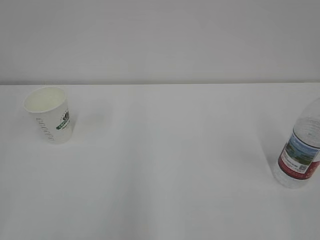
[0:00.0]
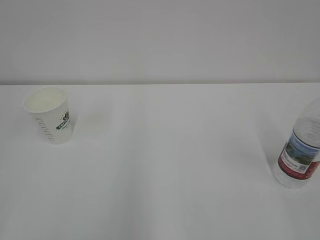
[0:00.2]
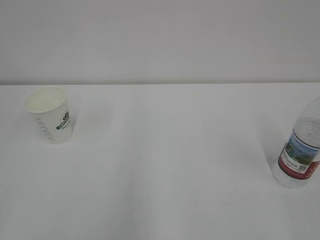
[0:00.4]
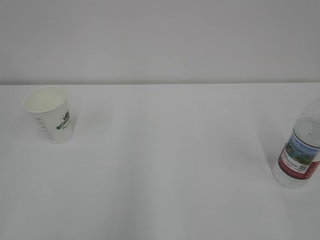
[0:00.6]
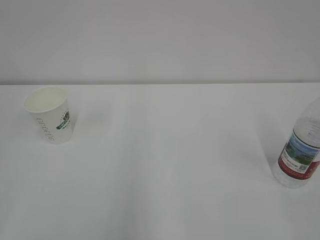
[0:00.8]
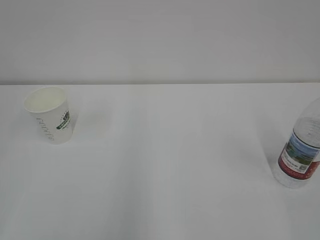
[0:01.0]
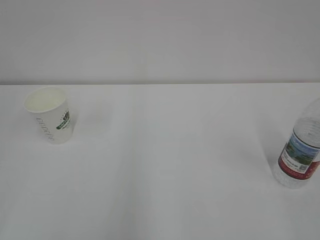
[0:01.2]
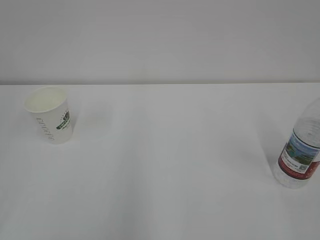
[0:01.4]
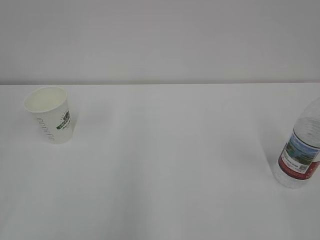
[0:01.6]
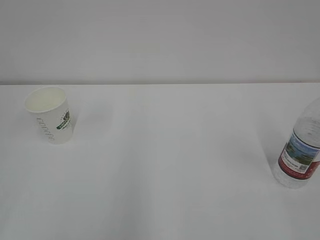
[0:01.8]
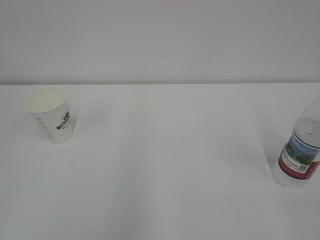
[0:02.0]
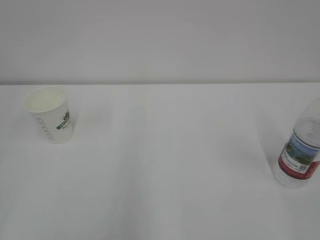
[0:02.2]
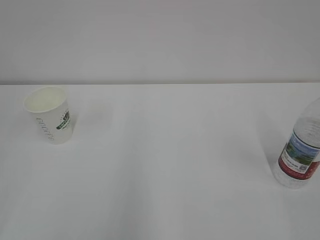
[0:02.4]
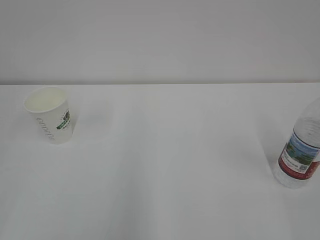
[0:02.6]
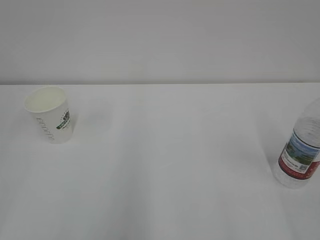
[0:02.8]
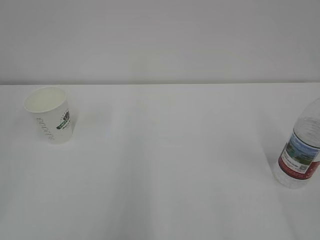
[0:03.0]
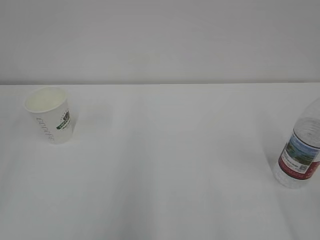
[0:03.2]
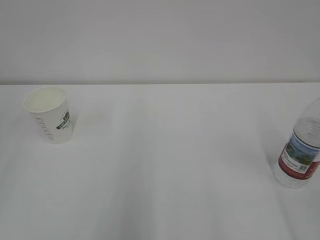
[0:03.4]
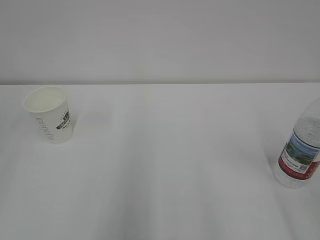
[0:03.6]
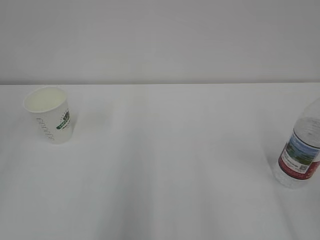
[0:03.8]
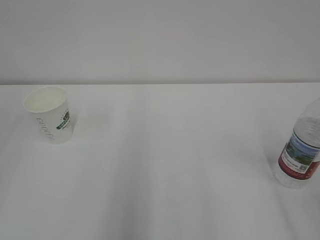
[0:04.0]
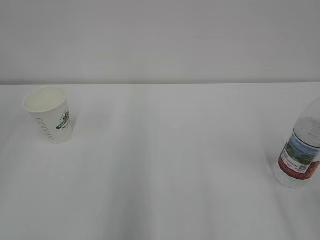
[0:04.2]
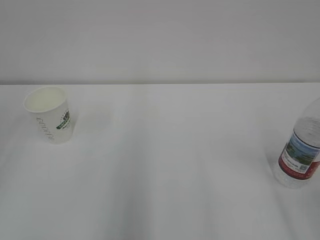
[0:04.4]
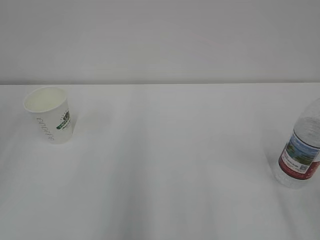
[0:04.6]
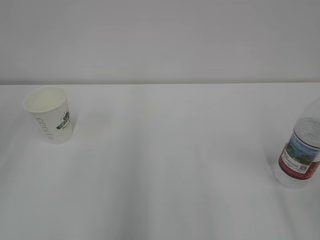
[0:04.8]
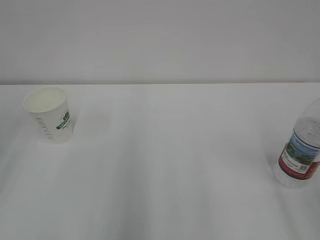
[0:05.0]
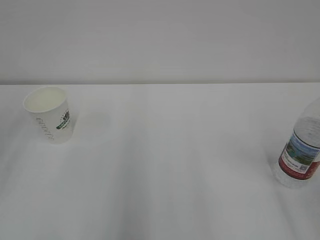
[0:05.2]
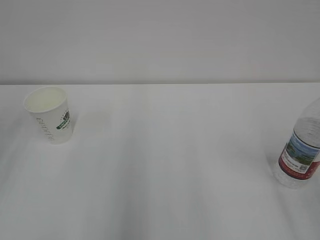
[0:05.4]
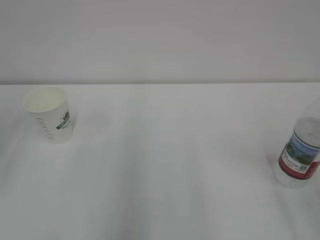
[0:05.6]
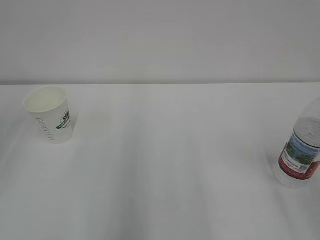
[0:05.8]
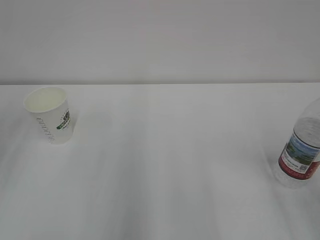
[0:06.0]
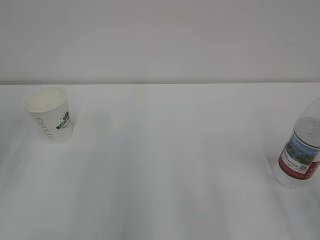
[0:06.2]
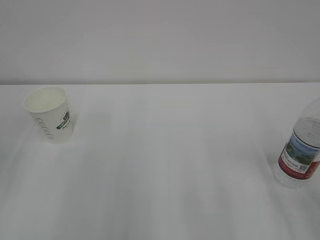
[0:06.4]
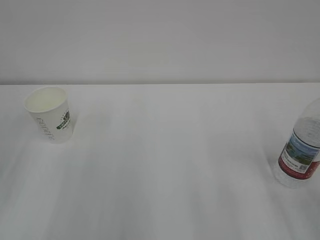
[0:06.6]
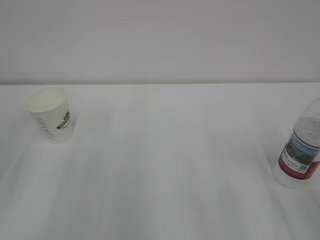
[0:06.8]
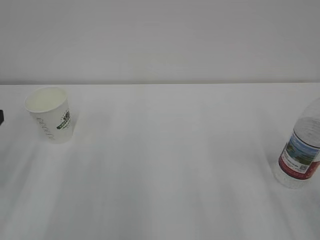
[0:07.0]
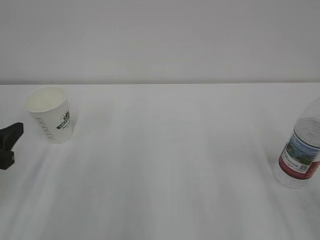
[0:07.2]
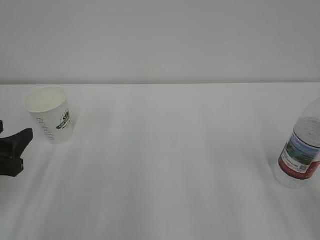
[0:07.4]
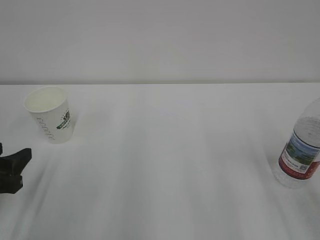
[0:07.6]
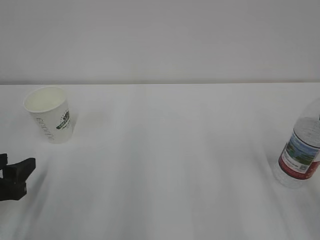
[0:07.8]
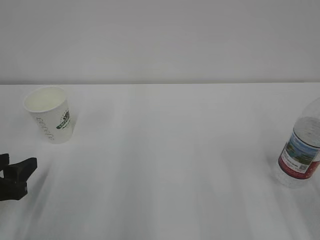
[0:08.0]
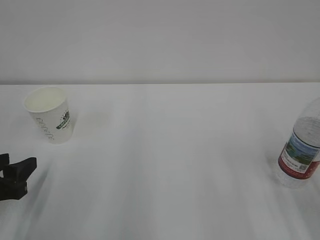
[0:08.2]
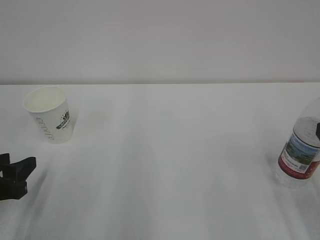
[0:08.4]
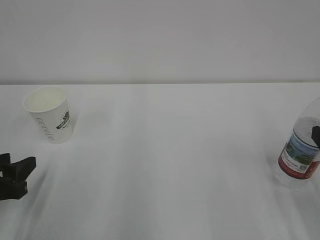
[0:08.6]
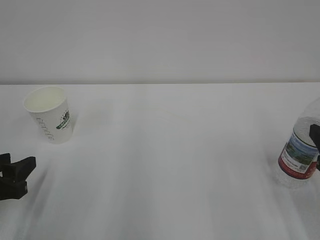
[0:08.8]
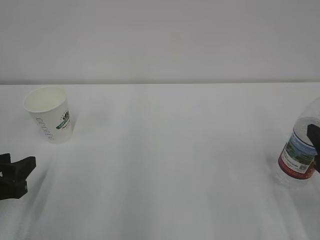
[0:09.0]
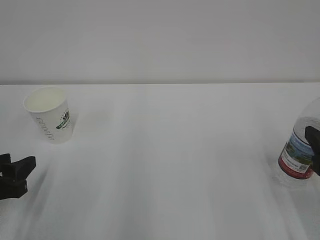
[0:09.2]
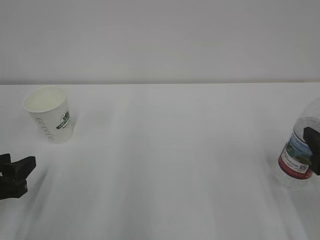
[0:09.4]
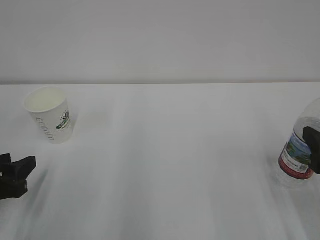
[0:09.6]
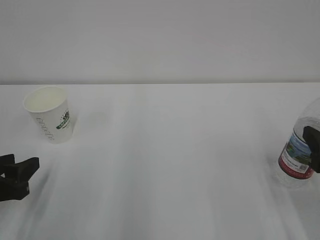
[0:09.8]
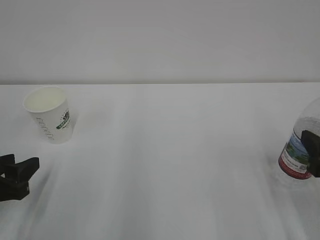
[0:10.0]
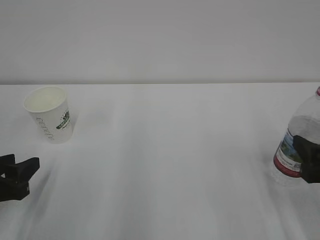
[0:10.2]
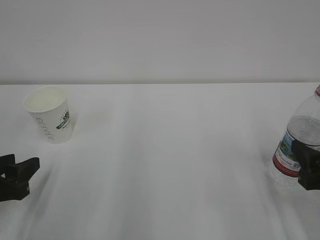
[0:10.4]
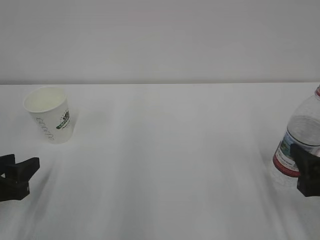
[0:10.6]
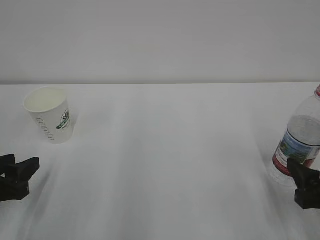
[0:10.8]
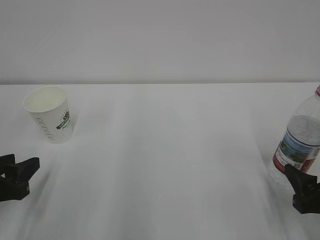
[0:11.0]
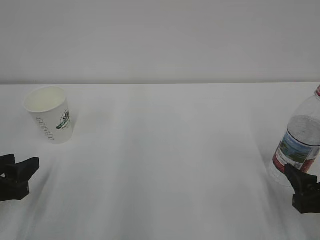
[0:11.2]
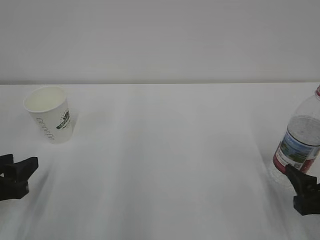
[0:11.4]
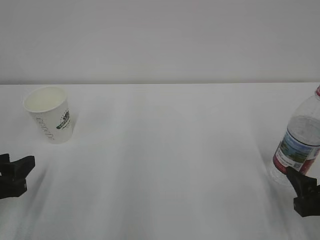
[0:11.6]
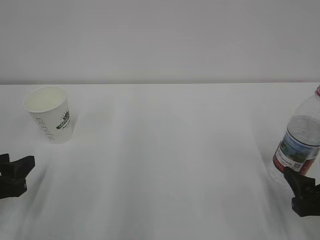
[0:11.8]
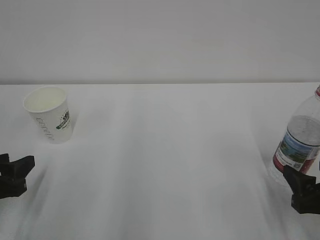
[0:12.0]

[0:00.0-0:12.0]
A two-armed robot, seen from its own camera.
0:06.0 to 0:07.6: The left gripper is displaced downward by approximately 15 cm.
0:09.0 to 0:10.4: There are only small adjustments of the grippers.
0:10.4 to 0:12.0: There are only small adjustments of the grippers.

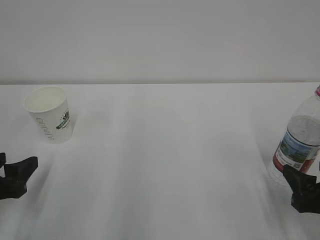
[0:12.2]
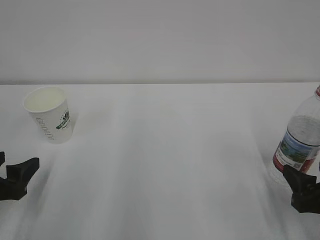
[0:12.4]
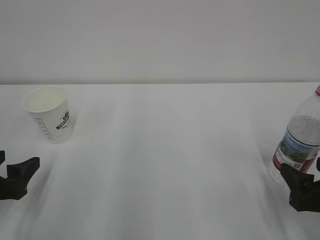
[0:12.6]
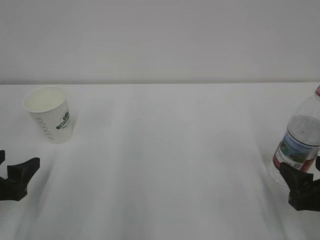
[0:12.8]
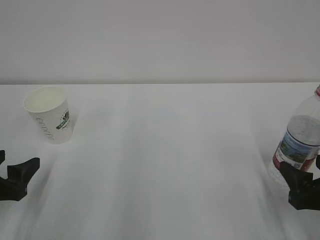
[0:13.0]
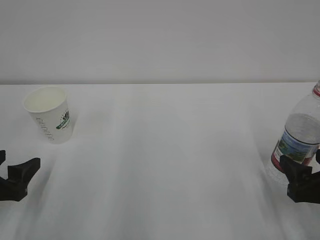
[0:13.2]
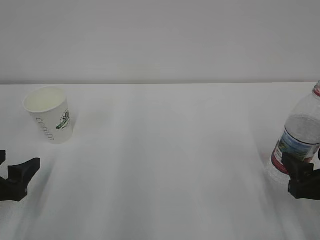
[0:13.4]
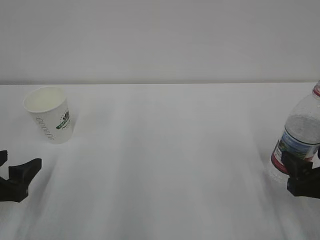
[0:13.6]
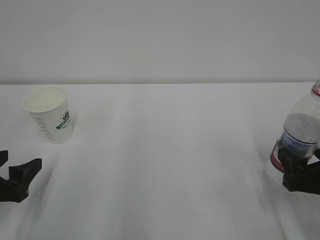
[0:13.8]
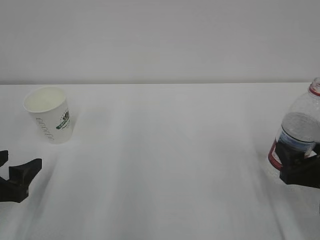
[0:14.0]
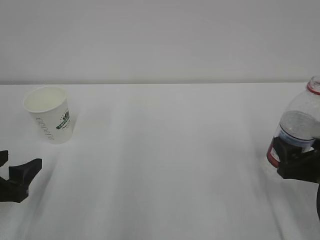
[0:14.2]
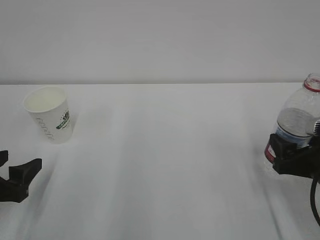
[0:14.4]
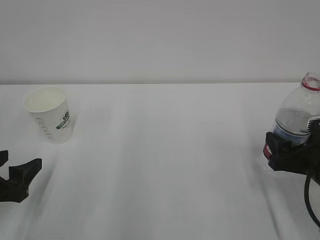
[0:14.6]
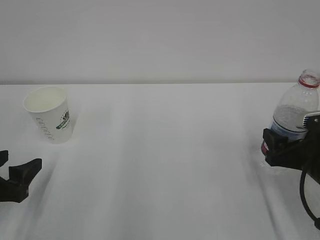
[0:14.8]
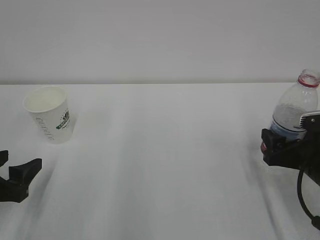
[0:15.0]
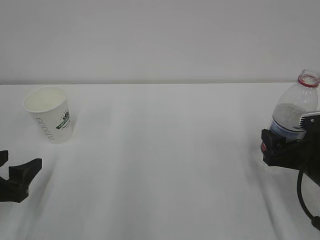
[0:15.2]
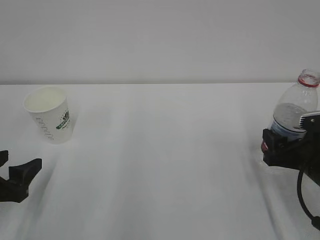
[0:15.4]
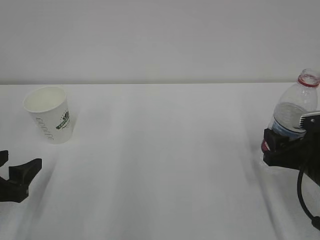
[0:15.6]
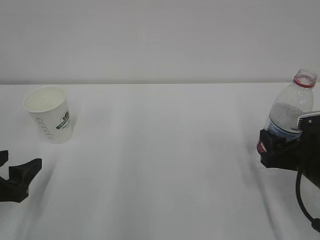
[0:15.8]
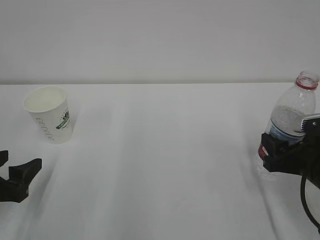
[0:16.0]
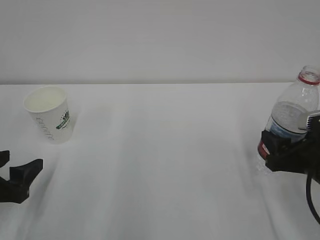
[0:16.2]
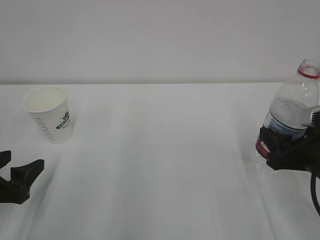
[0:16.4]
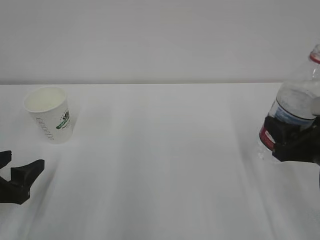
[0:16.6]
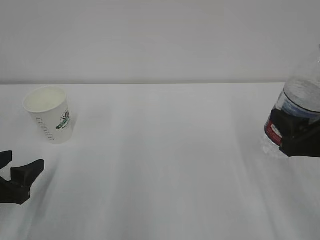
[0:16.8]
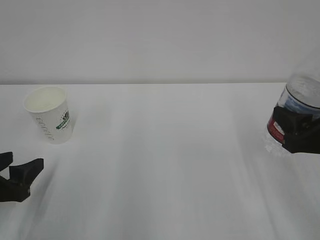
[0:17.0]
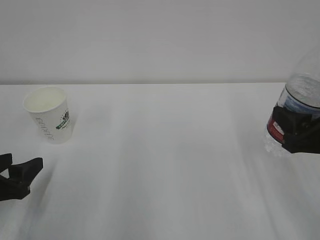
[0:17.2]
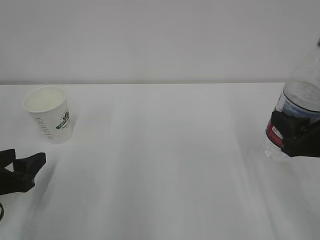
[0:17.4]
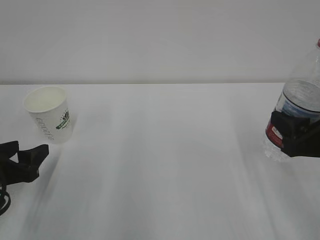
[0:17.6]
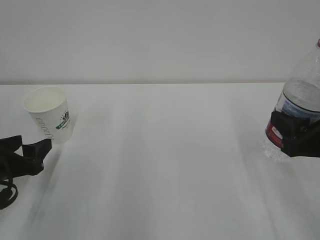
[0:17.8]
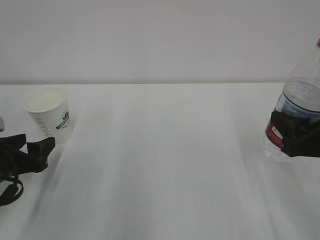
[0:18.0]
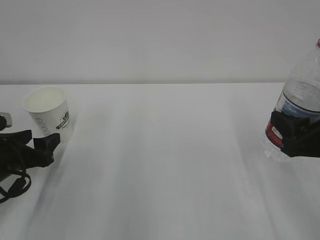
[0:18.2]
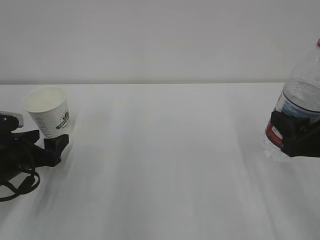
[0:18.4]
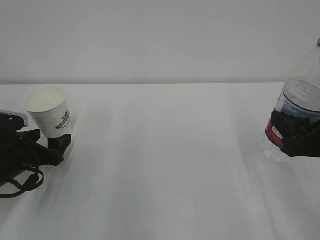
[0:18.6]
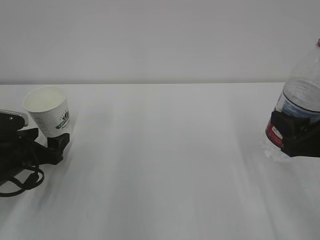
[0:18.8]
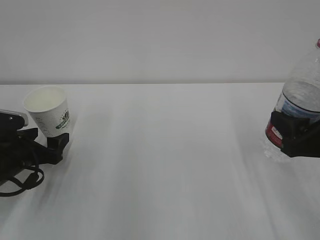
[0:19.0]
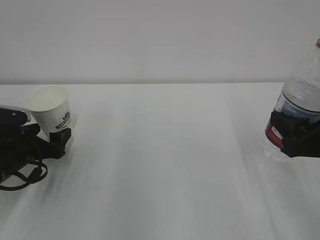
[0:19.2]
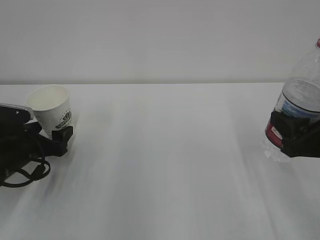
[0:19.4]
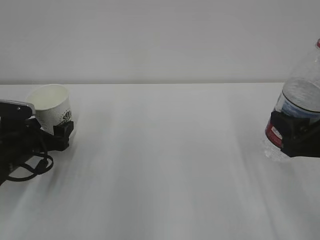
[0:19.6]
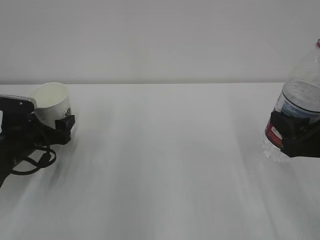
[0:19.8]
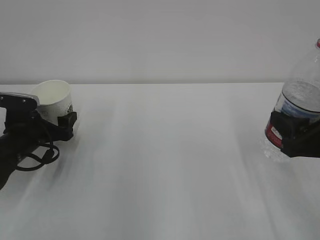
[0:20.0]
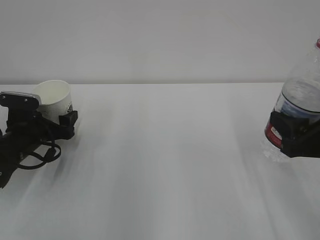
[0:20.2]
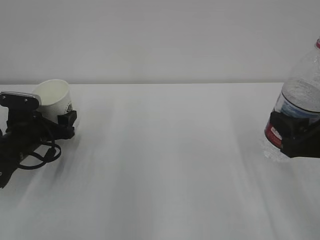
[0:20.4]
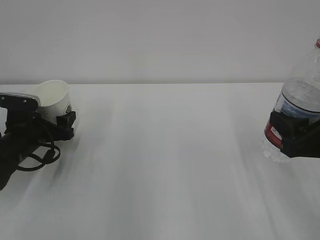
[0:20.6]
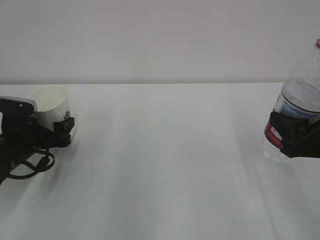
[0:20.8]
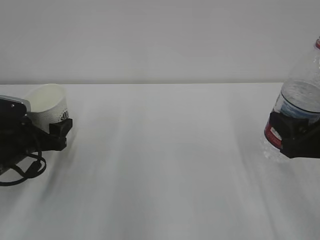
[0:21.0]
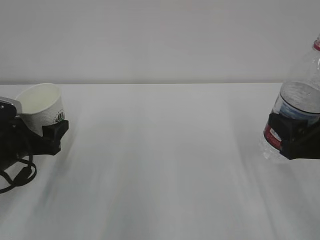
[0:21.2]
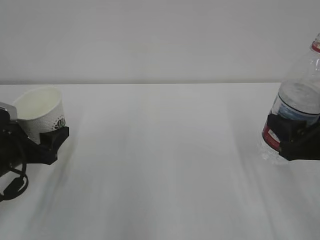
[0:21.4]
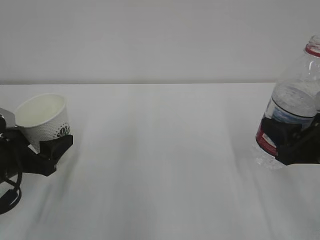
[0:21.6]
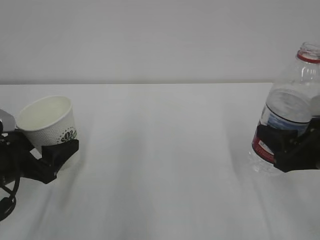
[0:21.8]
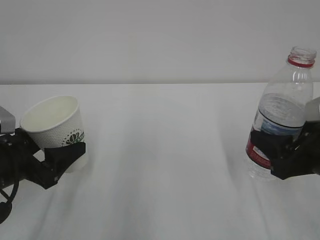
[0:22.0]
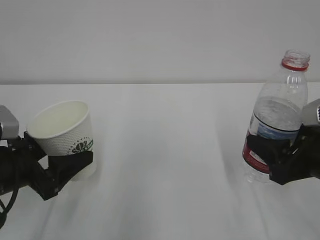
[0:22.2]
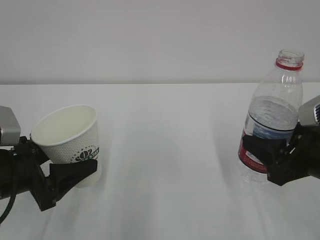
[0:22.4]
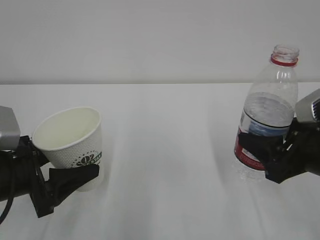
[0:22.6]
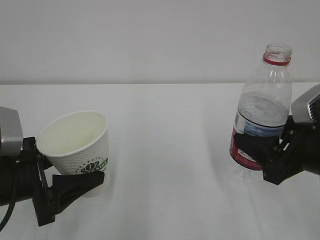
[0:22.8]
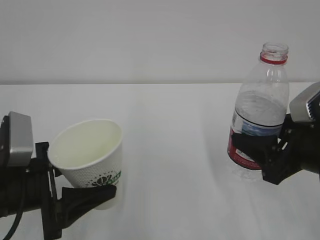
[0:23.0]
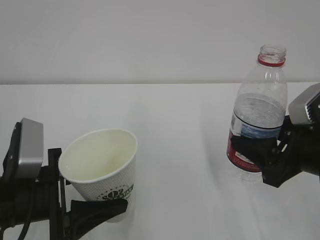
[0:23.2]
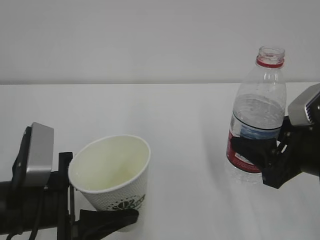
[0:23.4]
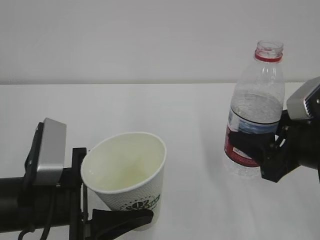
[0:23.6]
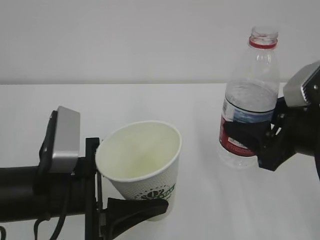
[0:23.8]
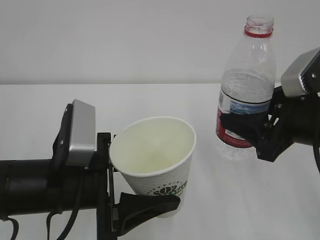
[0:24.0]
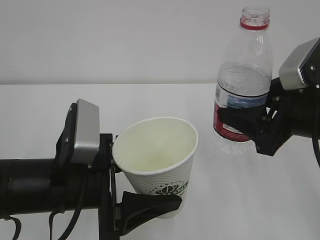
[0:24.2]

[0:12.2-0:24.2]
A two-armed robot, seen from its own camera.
0:12.2 to 0:13.8: The grippers make only small movements.
0:13.8 to 0:15.2: The right gripper is displaced forward by roughly 5 cm.
0:15.2 to 0:16.6: The right gripper is displaced upward by about 5 cm, and closes up.
0:16.6 to 0:18.2: The left gripper goes approximately 5 cm forward.
0:18.2 to 0:19.8: The left gripper moves forward, some 5 cm, and opens up.
0:19.8 to 0:21.2: The left gripper moves backward, roughly 5 cm, and closes its fingers.
0:21.2 to 0:22.6: The left gripper moves backward, about 10 cm.
0:22.6 to 0:24.2: The right gripper ends up some 5 cm from where it was, while the left gripper moves to the right, some 10 cm.
